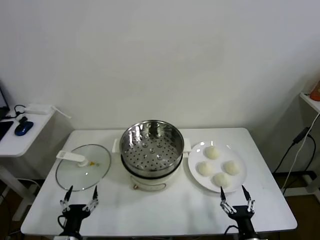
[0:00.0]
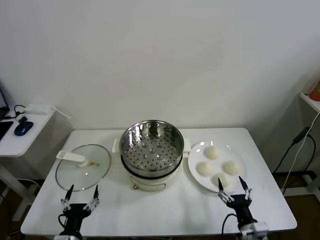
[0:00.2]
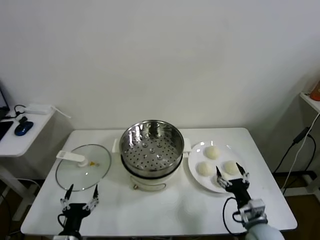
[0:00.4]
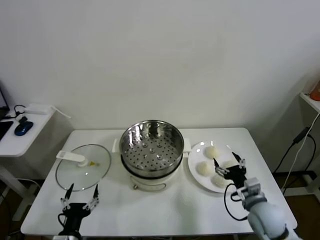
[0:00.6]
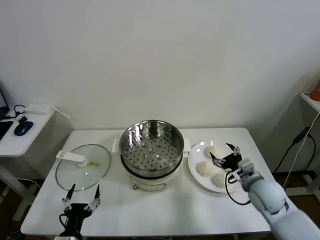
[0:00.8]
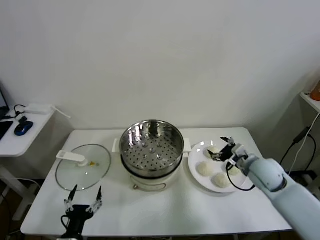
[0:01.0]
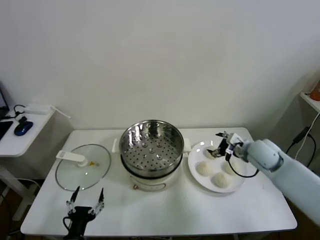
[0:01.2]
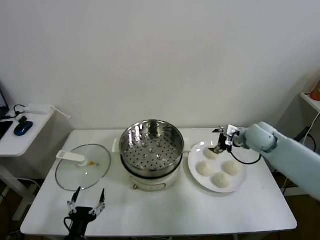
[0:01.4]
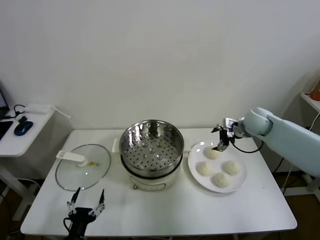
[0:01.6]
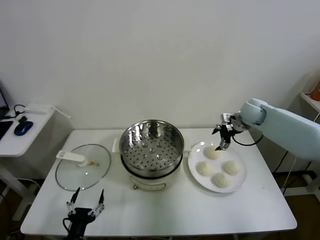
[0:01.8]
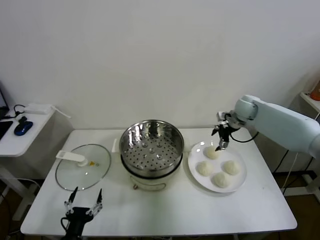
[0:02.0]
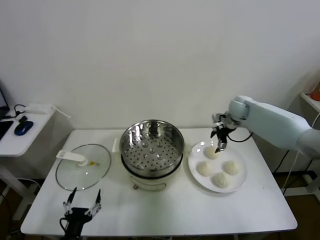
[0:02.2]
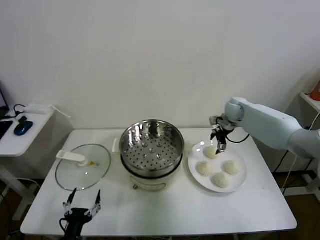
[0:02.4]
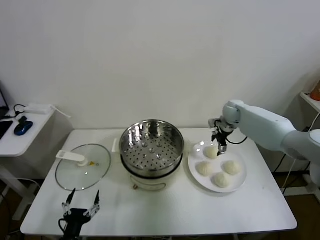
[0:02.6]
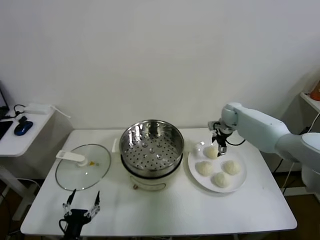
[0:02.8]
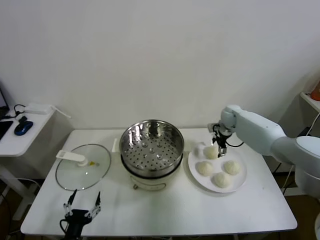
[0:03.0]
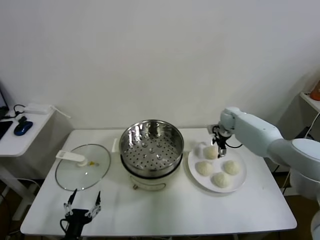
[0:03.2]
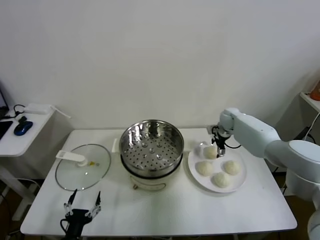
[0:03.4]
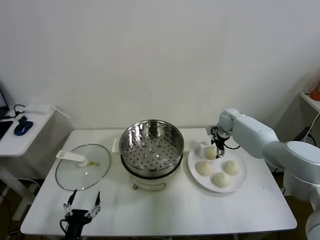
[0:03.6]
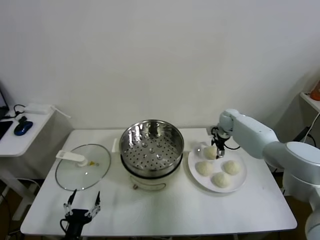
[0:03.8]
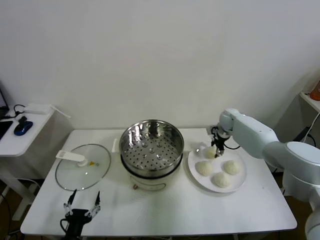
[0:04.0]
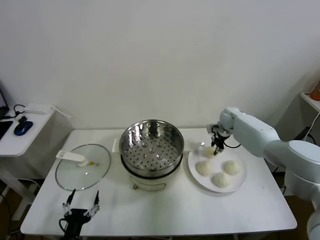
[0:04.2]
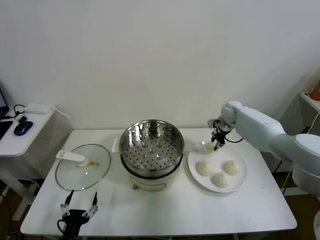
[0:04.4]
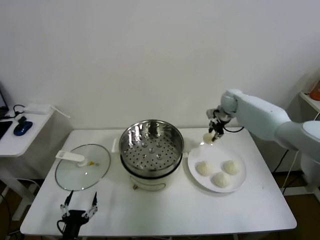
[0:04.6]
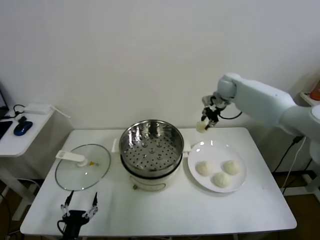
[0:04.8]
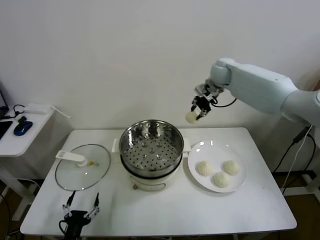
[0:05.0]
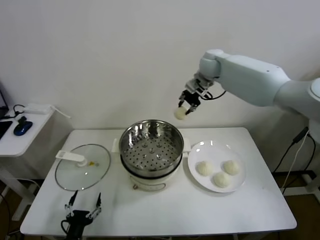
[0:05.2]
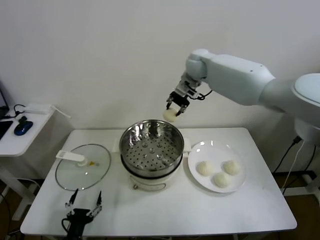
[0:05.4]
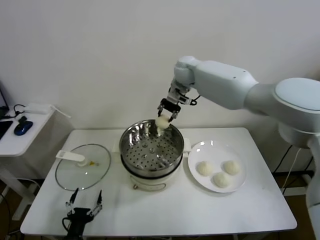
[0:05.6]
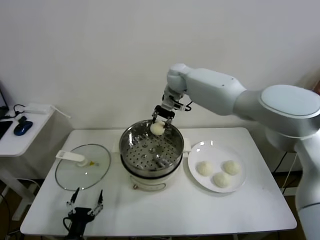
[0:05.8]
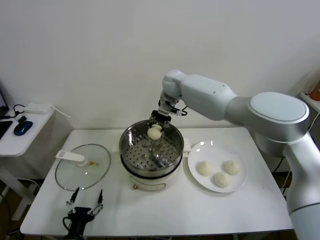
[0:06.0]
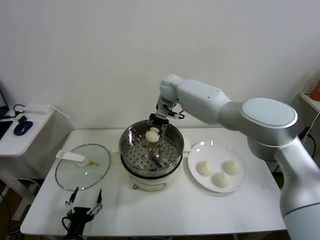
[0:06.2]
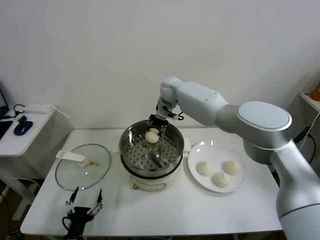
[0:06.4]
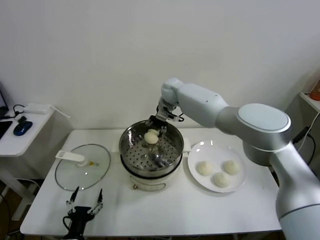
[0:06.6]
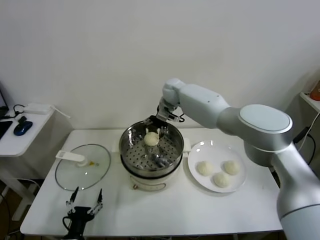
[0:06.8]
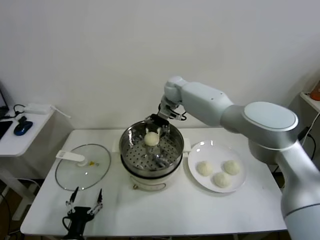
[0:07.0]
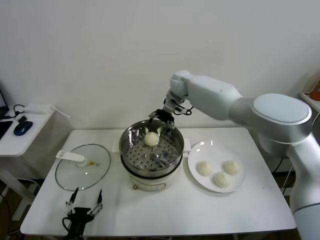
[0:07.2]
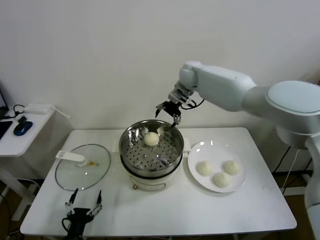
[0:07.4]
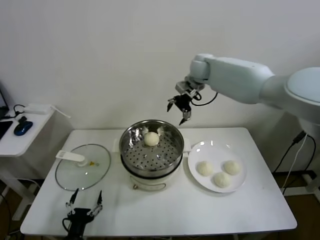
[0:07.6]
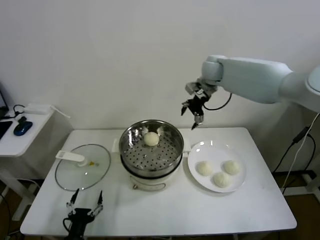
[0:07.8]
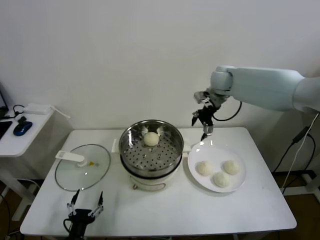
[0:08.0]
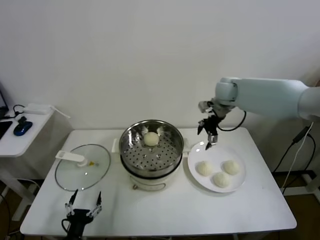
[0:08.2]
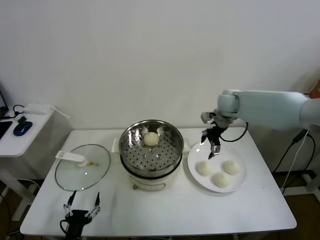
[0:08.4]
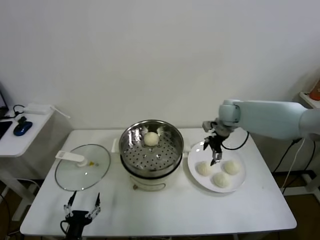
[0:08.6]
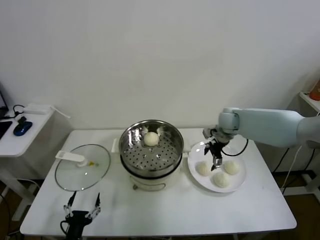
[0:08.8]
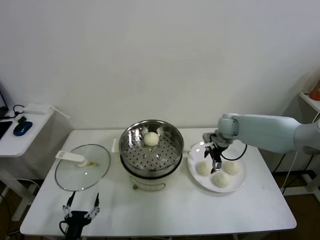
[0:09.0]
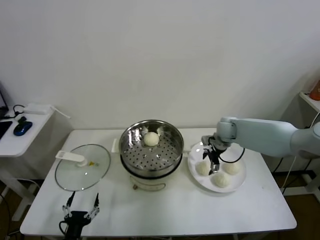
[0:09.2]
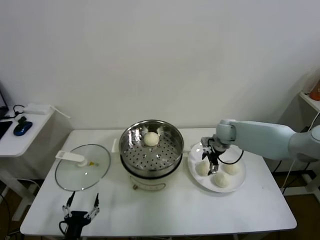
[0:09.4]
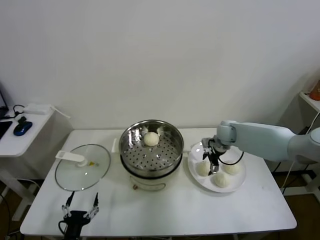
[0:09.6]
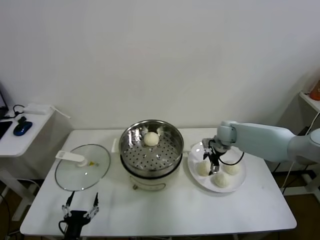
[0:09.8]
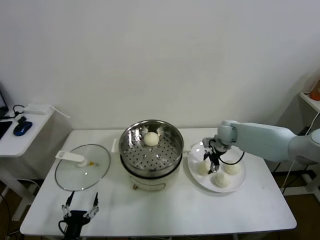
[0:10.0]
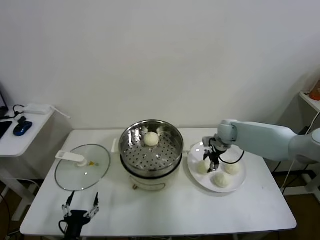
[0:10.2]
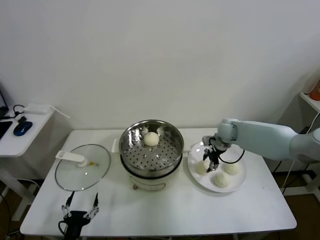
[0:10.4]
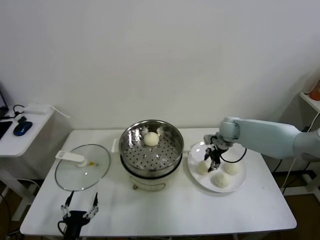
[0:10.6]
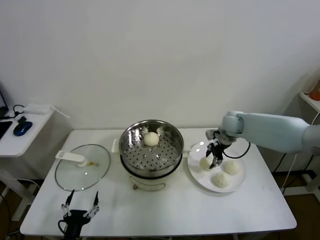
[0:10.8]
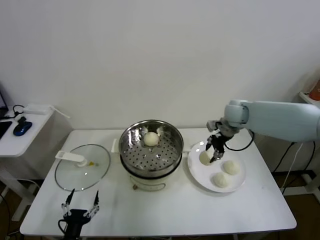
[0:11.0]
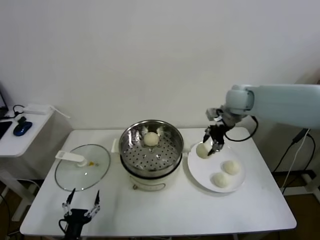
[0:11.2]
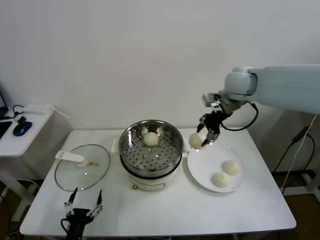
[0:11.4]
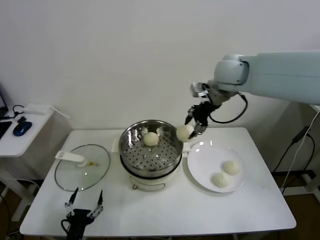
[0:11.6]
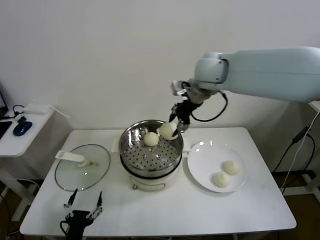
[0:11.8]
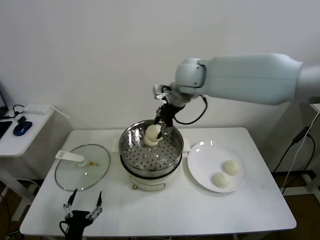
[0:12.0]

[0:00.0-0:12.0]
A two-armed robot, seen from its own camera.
Task of the whole recording: take steamed baozi put them in steamer.
Step, 0.0 to 4.0 s: Grasp the baozi in the plate with right gripper.
Step, 4.4 to 6.8 s: Place the baozi on the steamer with right gripper.
Step, 7.2 to 10.0 s: Grasp the baozi in the plate with right gripper.
1.6 to 3.0 s: The right gripper moves downward and forward, roughly 10 cm.
3.0 to 4.4 s: The right gripper travels upward by approximately 5 cm, and closes its fingers.
4.4 to 6.0 s: The right gripper travels to the left and upward by roughly 30 cm.
6.0 to 7.6 s: The right gripper moves to the right and upward, some 15 cm, and opens up.
7.6 to 9.0 s: The right gripper goes about 25 cm downward and to the right.
9.0 to 10.4 s: The right gripper closes its fingers.
10.4 to 12.0 s: The right gripper is displaced upward and to the left by about 30 cm.

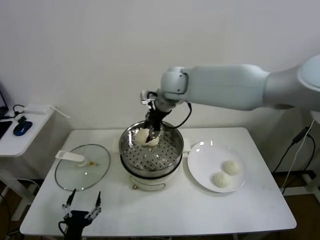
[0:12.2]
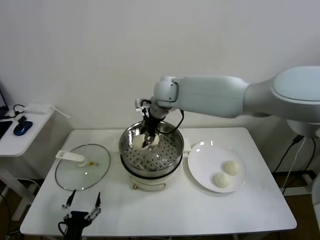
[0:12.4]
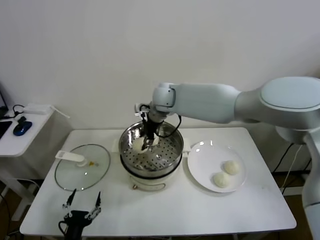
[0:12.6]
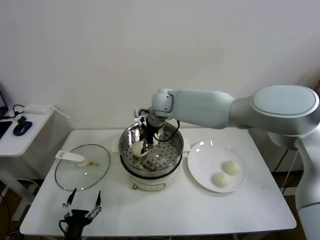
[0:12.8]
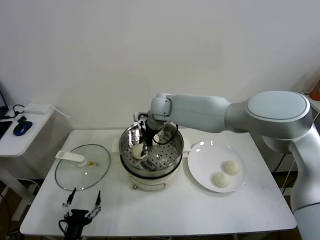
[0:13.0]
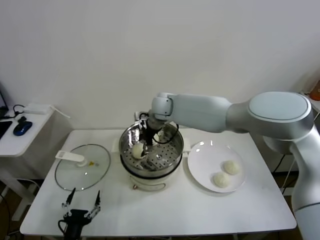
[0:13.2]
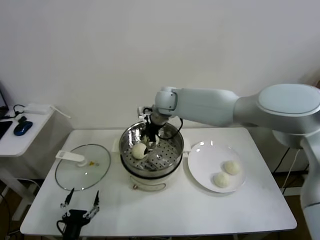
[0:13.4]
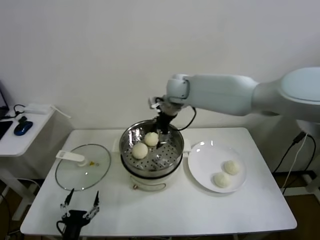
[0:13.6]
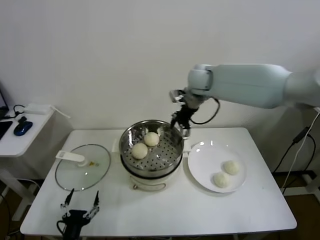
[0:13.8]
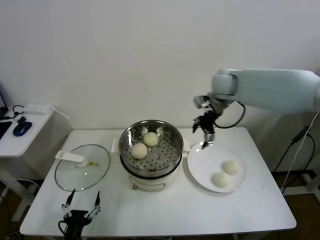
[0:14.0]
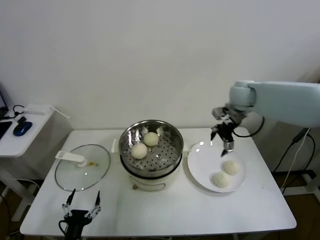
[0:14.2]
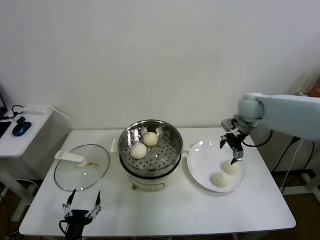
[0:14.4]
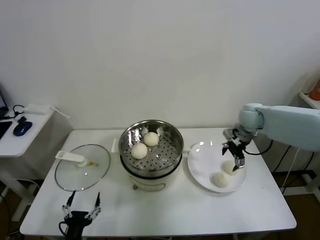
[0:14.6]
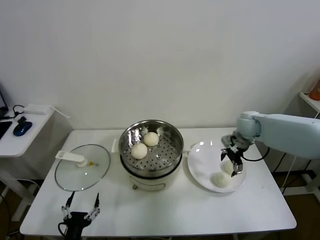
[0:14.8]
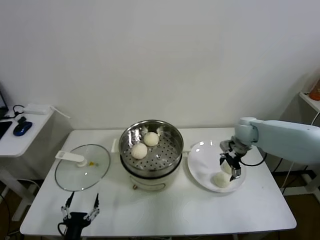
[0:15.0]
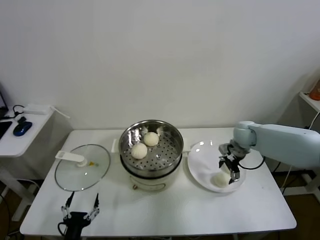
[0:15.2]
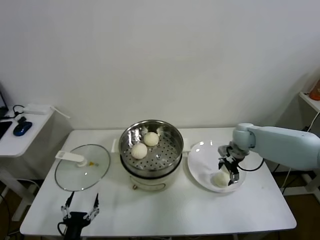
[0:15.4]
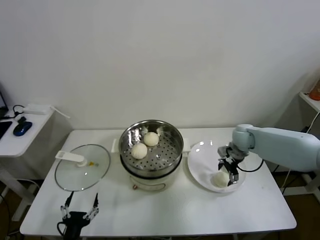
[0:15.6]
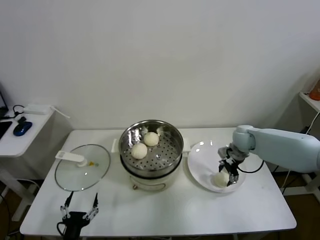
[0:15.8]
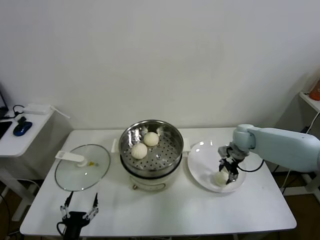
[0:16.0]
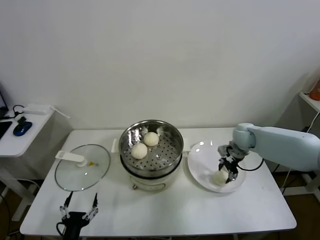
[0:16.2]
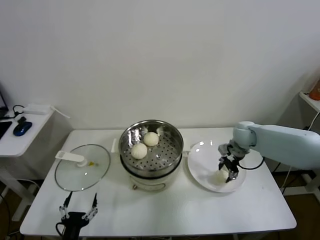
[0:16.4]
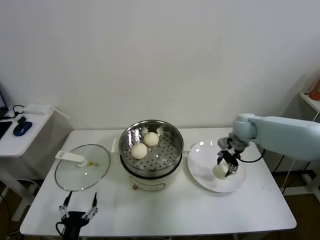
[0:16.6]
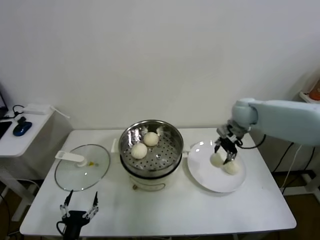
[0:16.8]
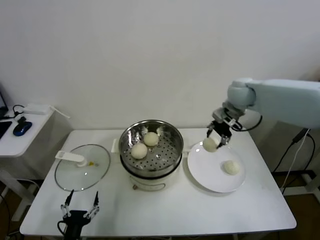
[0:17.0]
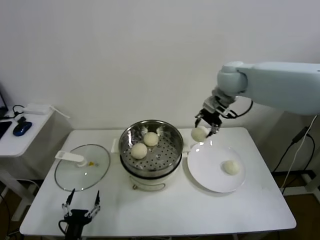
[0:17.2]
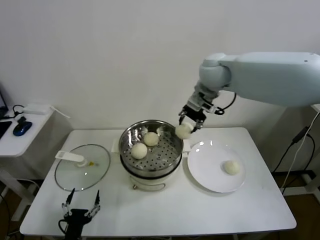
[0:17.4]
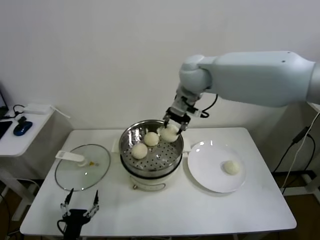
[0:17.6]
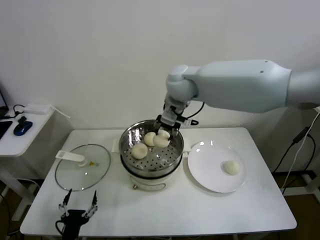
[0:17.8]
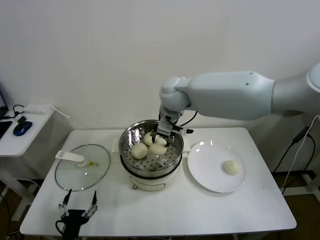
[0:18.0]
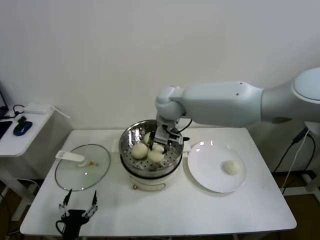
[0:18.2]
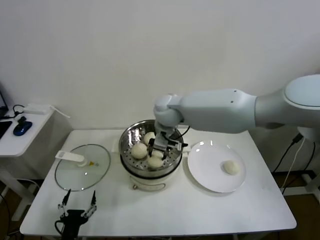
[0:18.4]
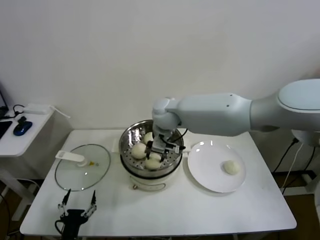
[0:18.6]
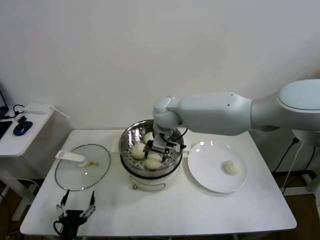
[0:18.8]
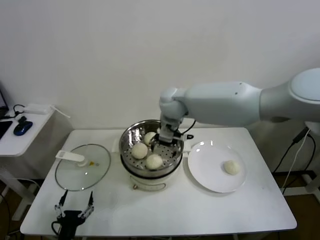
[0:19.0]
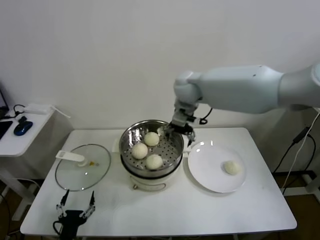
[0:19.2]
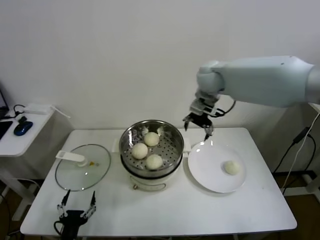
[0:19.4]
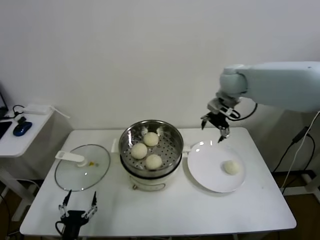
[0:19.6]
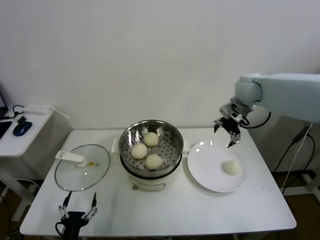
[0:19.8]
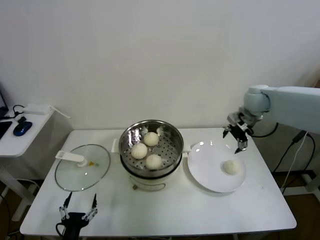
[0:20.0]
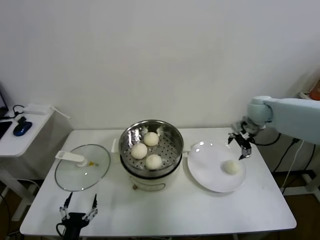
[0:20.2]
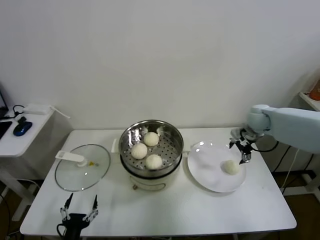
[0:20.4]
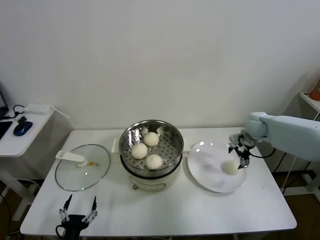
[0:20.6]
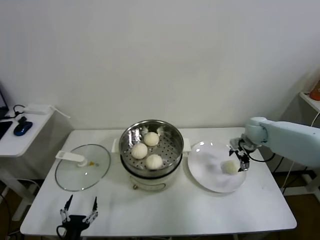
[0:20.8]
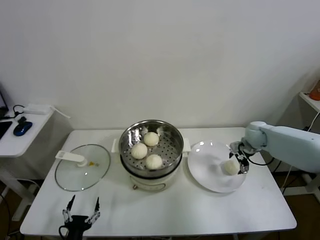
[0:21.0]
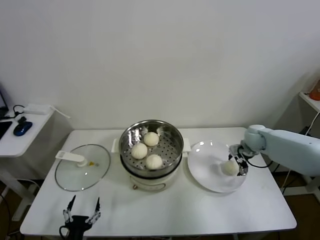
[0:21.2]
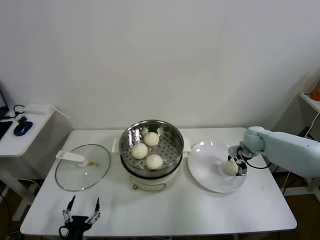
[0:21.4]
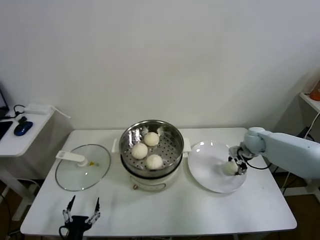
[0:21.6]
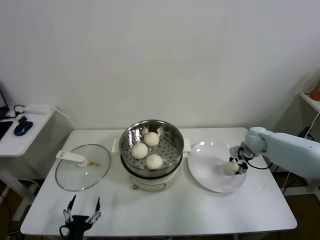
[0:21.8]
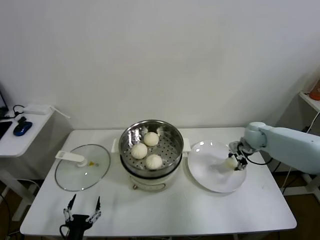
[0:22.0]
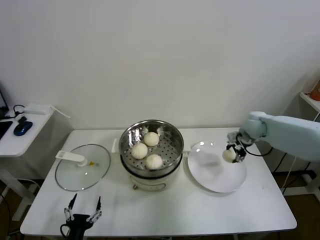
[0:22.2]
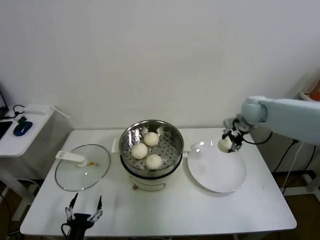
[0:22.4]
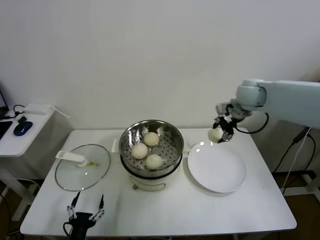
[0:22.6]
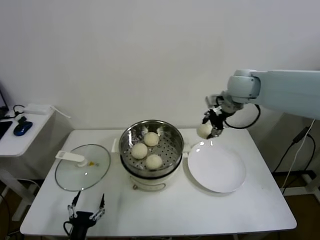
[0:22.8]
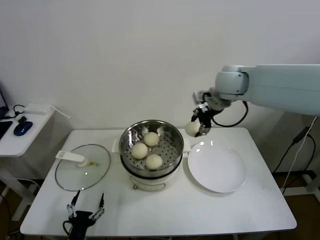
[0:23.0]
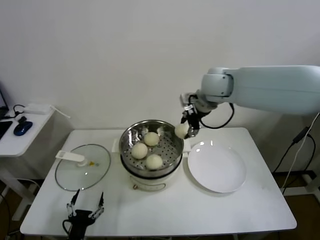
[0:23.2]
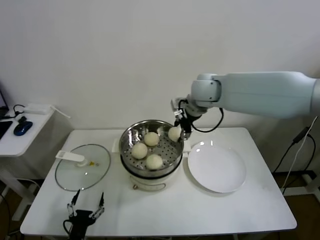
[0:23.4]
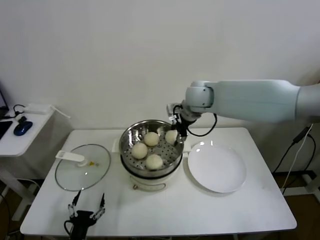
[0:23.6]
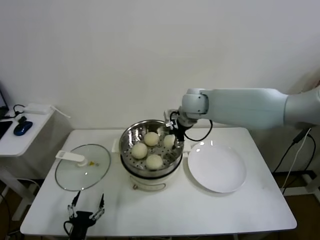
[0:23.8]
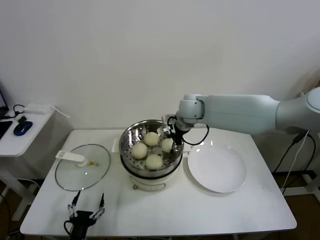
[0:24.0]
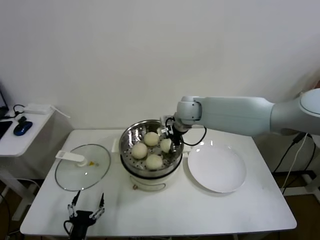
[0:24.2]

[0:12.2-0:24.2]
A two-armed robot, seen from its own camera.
Task of the whole recording: take steamed baozi put them in steamer.
Step, 13.4 to 16.2 s: Grasp the baozi in the plate with right gripper.
Step, 16.4 to 18.8 s: Place the baozi on the steamer with right gripper.
Step, 19.0 to 21.6 s: Grasp the baozi in the plate with right gripper.
12.2 to 13.8 s: The right gripper goes some 10 cm to the right, and opens up.
13.8 to 15.2 s: The right gripper travels downward and to the right by about 25 cm.
15.2 to 16.6 s: The right gripper closes its fingers.
16.6 to 18.2 s: The right gripper goes approximately 30 cm to the left and upward.
18.2 to 19.8 s: The right gripper goes about 25 cm to the right, and opens.
19.8 to 21.2 s: The right gripper is displaced downward and to the right by about 20 cm.
21.2 to 22.6 s: The right gripper goes about 20 cm upward and to the left, and closes up.
22.6 to 24.2 s: The right gripper travels to the left by approximately 20 cm.
